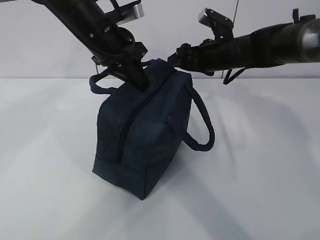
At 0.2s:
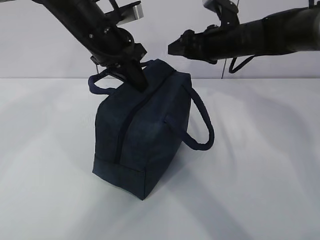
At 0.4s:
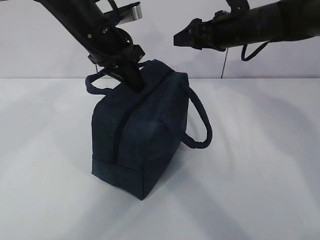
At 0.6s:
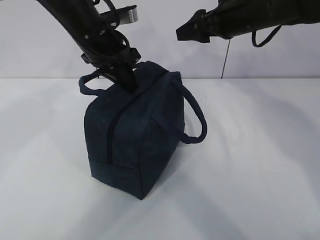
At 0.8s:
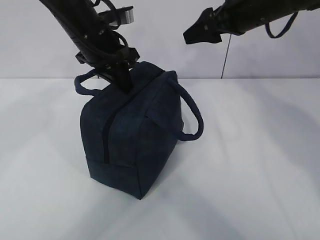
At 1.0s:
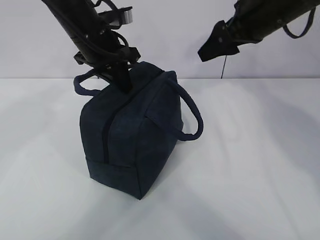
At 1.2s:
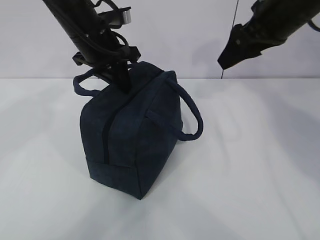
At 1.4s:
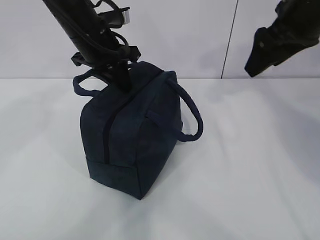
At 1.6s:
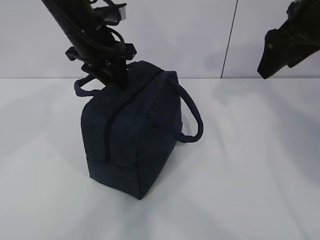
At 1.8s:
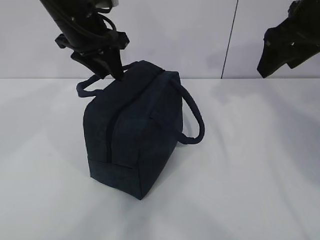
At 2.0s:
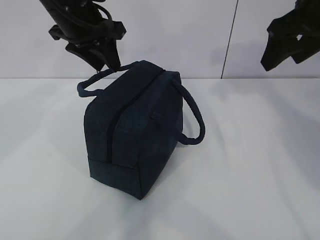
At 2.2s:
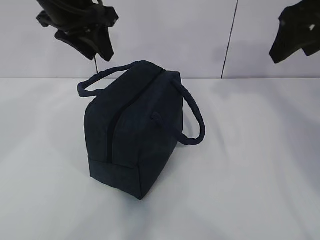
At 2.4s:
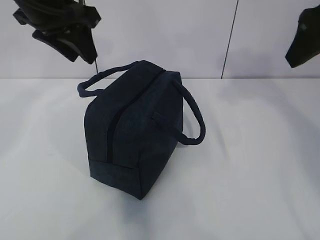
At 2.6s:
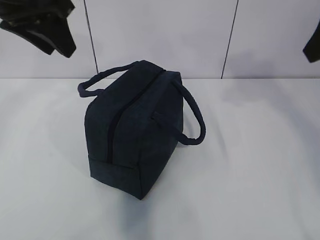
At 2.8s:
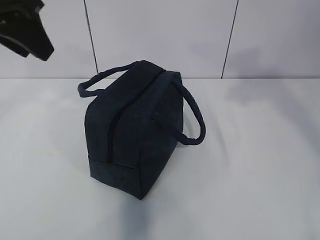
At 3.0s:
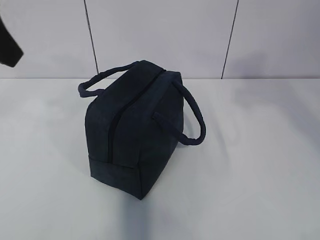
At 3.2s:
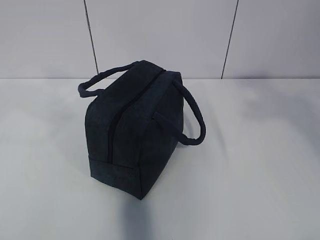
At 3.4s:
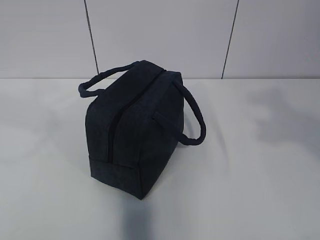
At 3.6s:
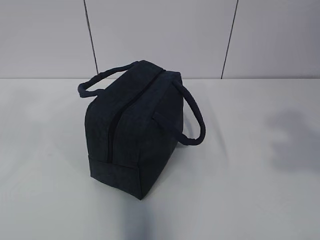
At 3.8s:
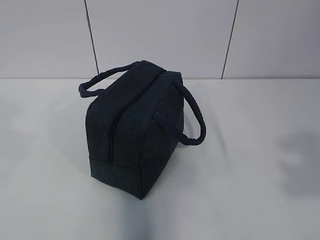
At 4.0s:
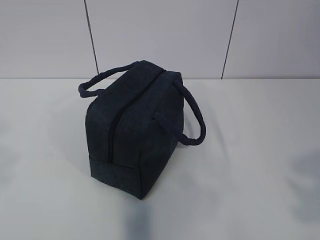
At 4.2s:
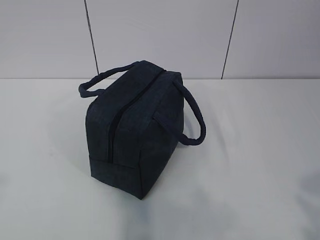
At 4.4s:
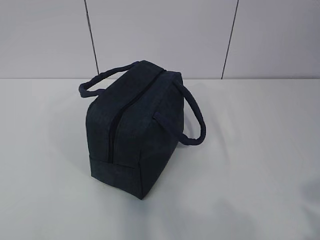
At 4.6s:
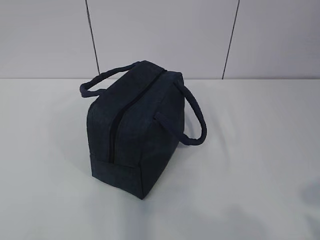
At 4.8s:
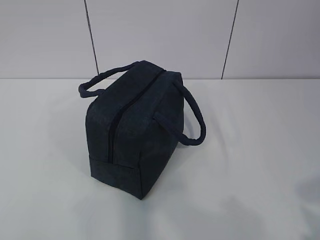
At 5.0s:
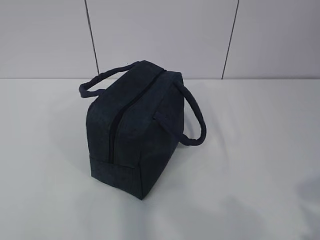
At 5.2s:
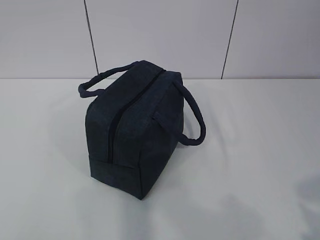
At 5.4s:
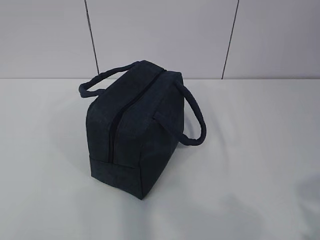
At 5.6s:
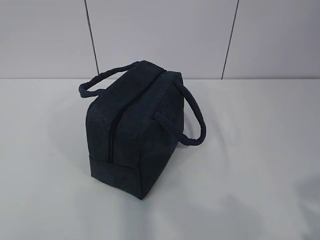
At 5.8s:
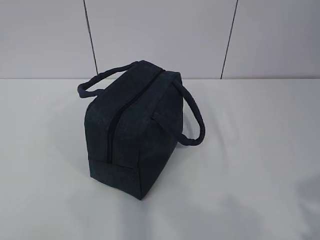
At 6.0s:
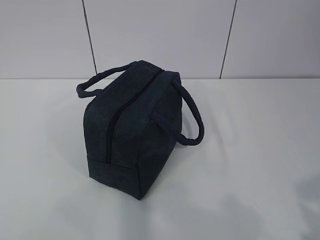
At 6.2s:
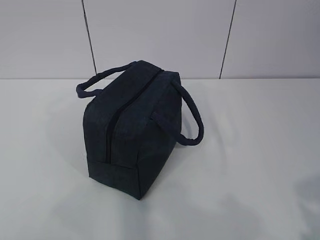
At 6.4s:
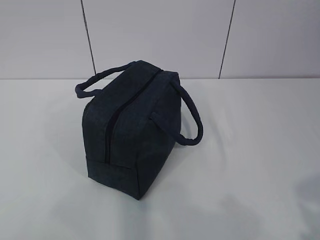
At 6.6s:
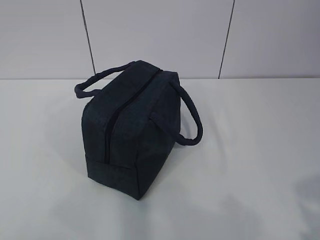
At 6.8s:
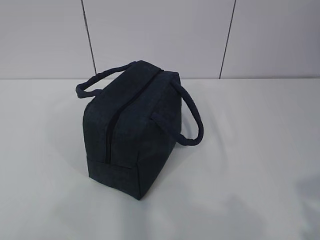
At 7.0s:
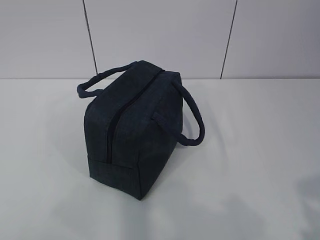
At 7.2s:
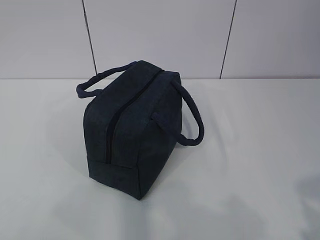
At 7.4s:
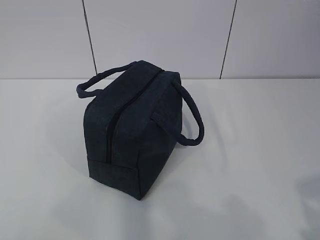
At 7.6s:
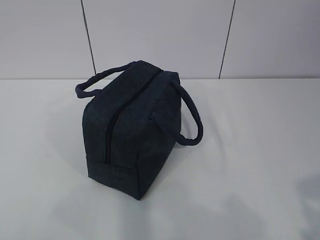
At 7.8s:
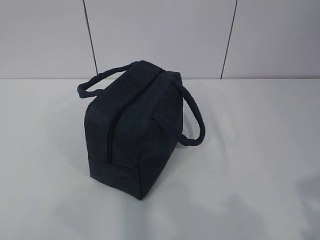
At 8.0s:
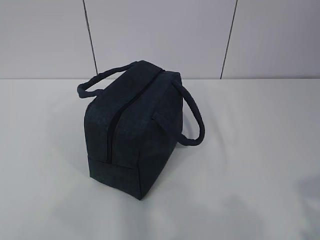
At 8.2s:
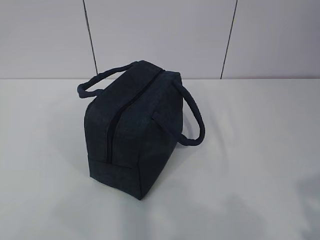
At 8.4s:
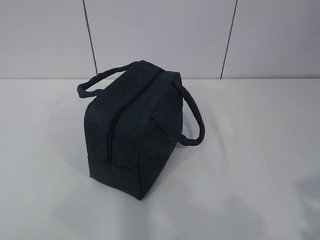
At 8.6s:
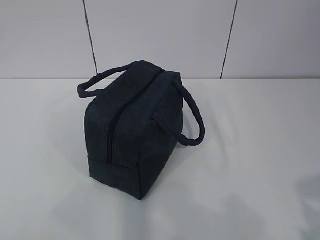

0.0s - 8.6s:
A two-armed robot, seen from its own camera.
0.0s - 1.4s: The right gripper heads upward, backward and to the right, covering approximately 20 cm.
1.4s - 2.8s: The right gripper goes about 15 cm backward and upward. Meanwhile the left gripper travels backward, upward and to the left by approximately 20 cm, and opens.
2.8s - 4.4s: The left gripper is displaced backward and to the left by approximately 30 cm; the right gripper moves backward and downward, roughly 30 cm.
4.4s - 5.8s: The left gripper changes place by roughly 5 cm.
7.2s - 8.6s: The two grippers keep their place.

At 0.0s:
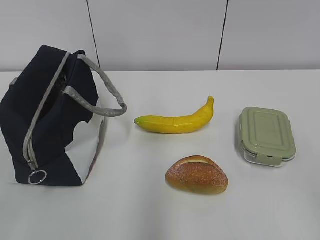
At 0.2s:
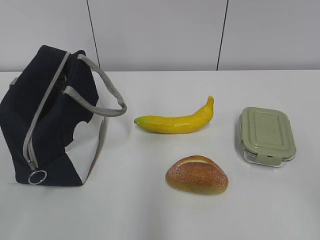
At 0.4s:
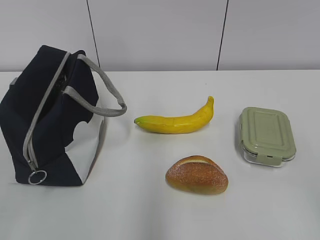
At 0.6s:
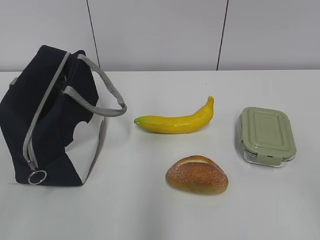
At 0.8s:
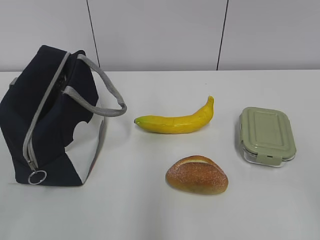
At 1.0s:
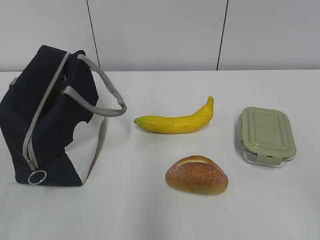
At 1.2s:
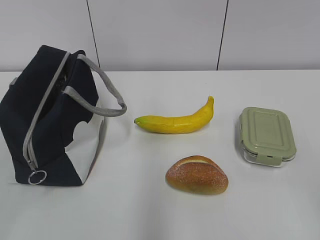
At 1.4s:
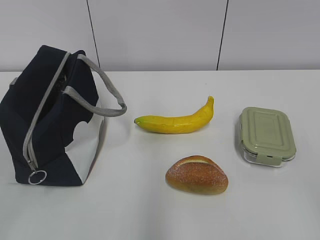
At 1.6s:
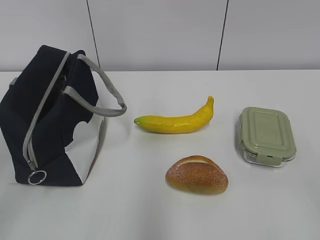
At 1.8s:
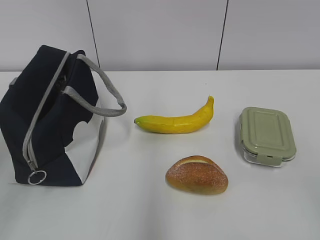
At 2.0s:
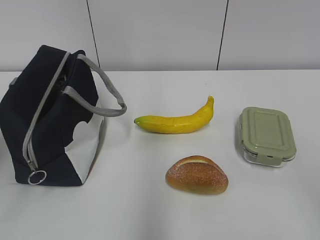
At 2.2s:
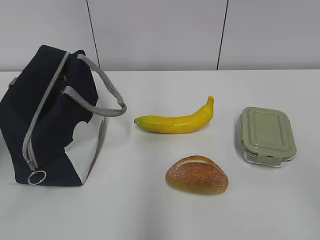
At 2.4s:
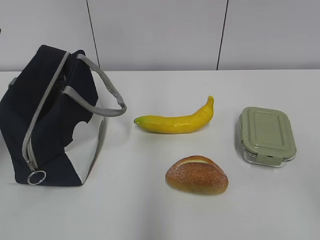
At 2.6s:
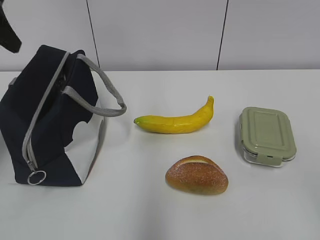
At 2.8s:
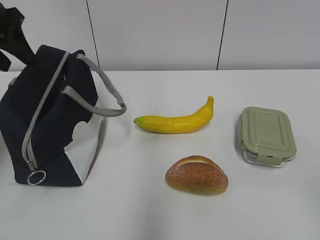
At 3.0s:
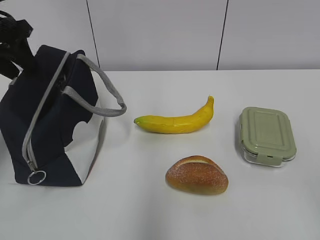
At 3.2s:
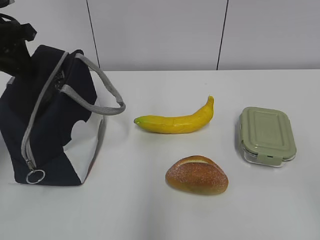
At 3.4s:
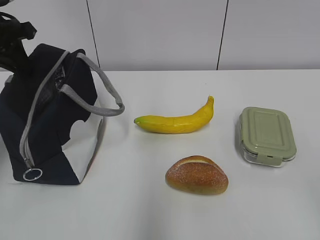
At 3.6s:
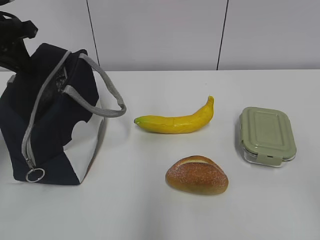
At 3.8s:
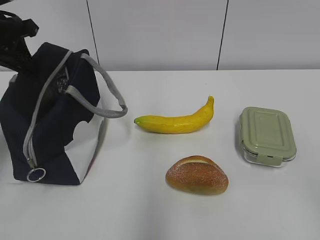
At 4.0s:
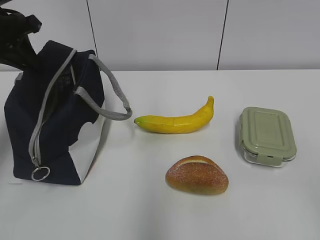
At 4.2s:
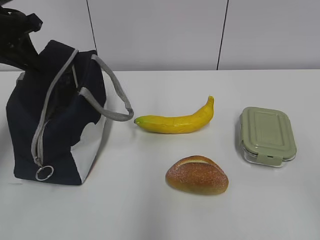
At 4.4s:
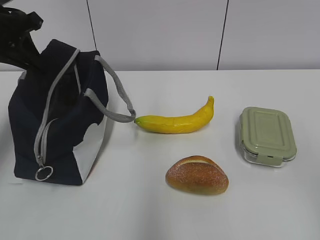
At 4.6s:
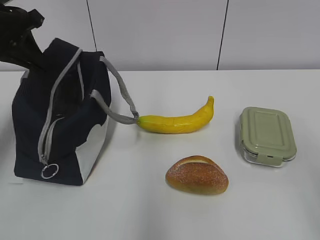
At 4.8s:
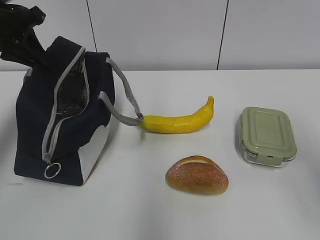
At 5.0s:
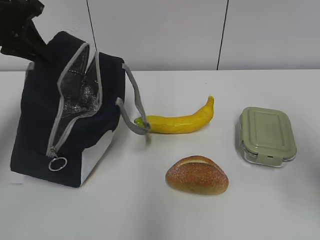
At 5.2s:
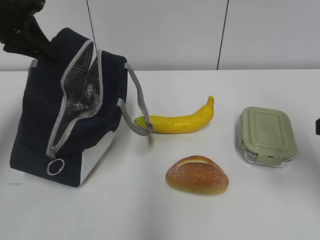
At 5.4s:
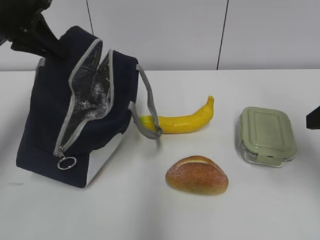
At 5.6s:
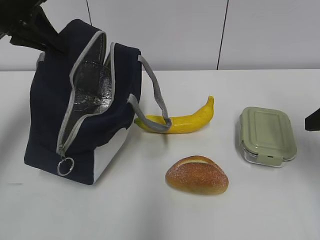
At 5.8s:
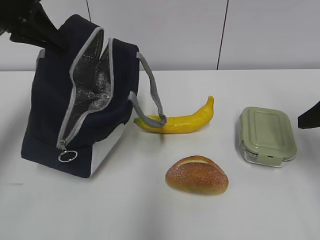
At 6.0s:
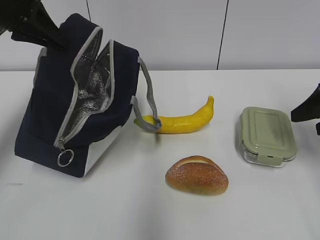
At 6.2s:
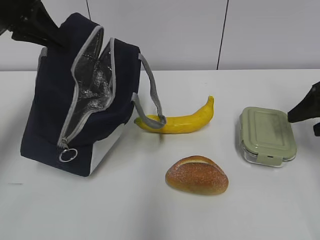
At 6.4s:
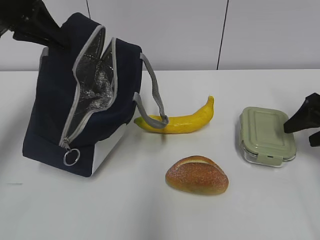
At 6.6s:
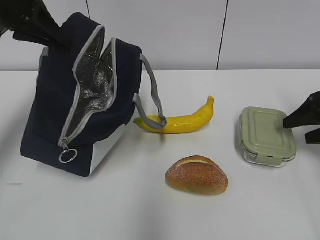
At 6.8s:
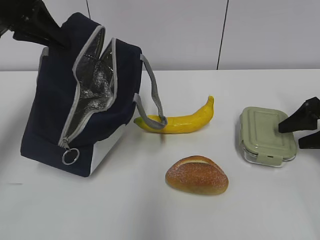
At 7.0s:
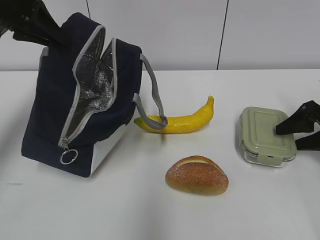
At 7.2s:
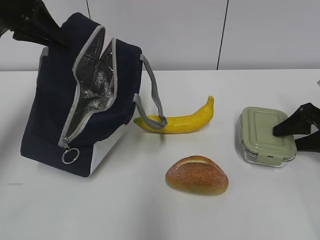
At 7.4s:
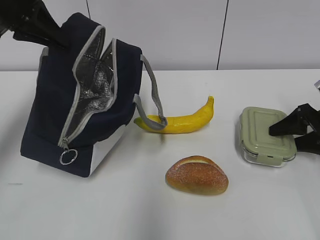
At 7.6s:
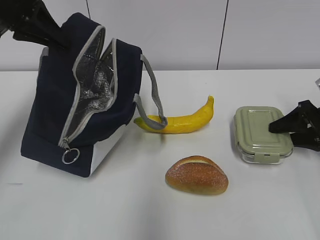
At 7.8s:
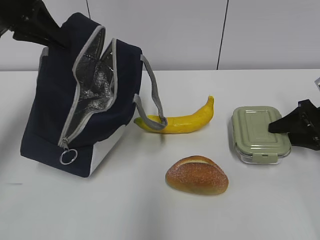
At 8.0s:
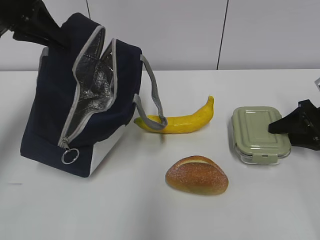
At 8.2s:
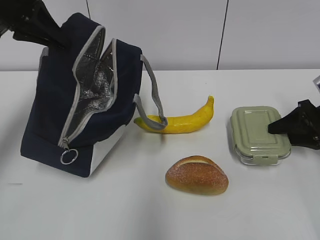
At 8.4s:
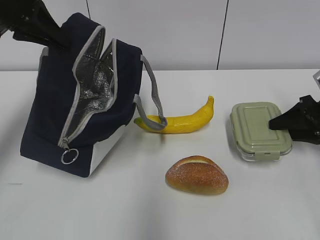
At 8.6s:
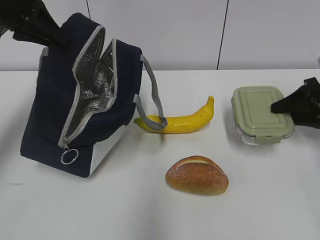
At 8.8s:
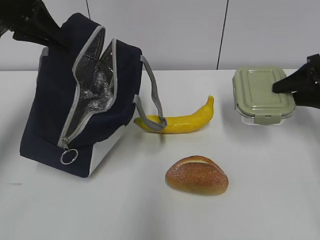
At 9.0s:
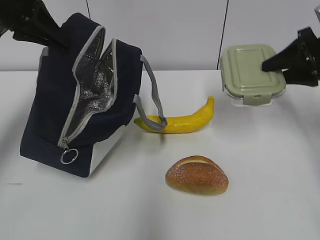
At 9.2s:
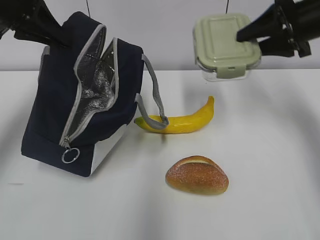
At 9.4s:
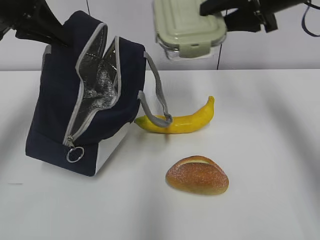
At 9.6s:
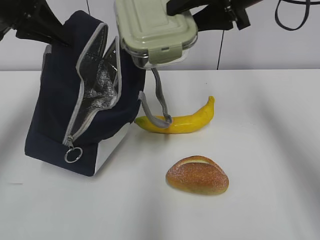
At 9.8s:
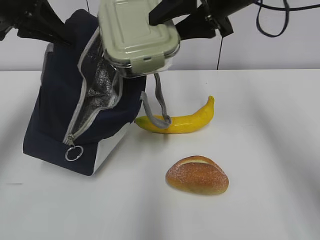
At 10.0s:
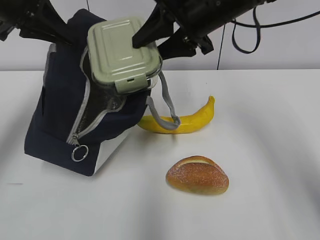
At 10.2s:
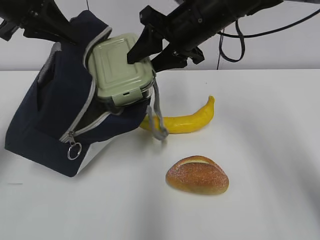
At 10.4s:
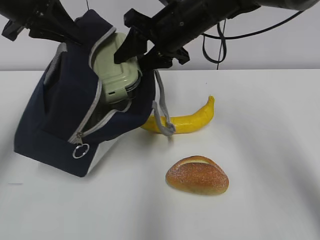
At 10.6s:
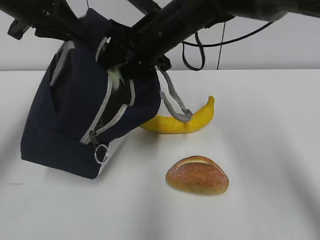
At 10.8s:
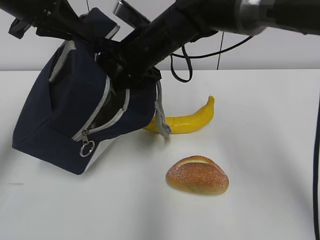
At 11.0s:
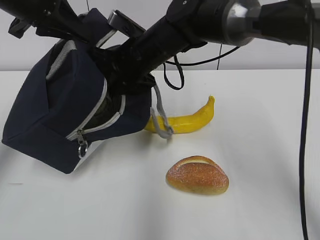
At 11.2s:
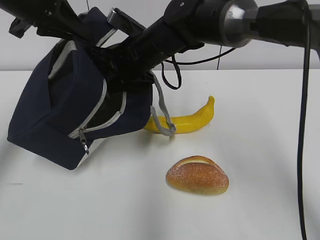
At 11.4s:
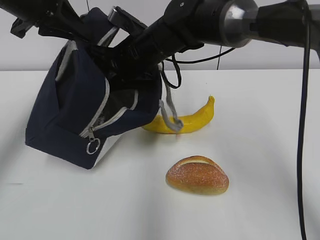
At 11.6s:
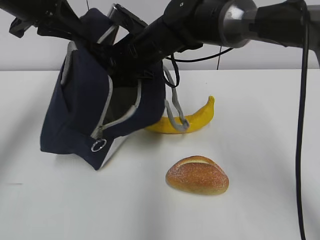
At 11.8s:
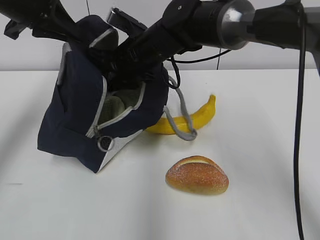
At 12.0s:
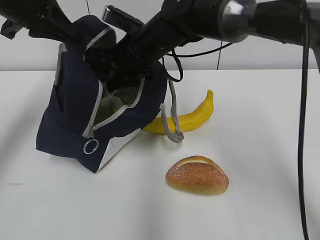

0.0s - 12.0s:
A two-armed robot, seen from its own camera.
1.6s - 3.0s: The left gripper is displaced forward by roughly 30 cm, and closes up.
3.0s - 4.4s: The left gripper closes its fingers.
4.4s - 6.0s: The right gripper shifts about 30 cm forward, while the left gripper changes place by roughly 5 cm.
6.0s - 7.6s: The right gripper shifts approximately 10 cm downward and forward.
7.6s - 9.0s: The right gripper shifts some 15 cm upward.
9.0s - 10.4s: The right gripper shifts approximately 25 cm to the left.
10.4s - 12.0s: The right gripper goes roughly 5 cm to the left.

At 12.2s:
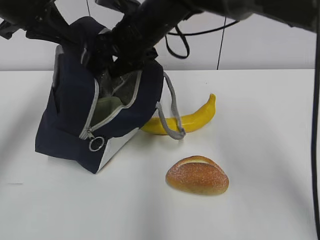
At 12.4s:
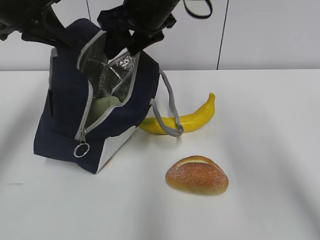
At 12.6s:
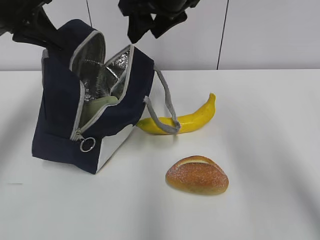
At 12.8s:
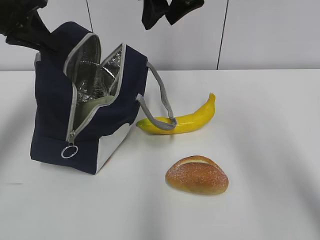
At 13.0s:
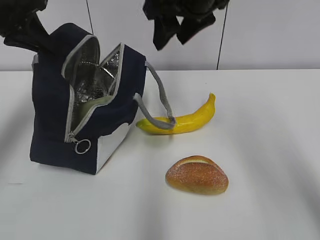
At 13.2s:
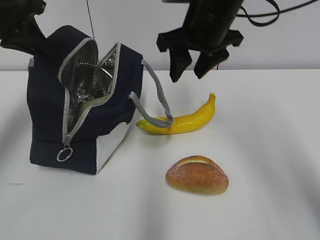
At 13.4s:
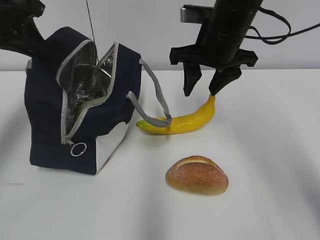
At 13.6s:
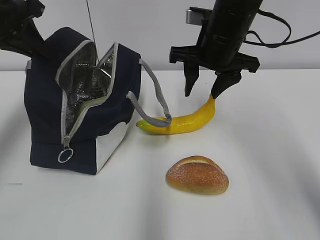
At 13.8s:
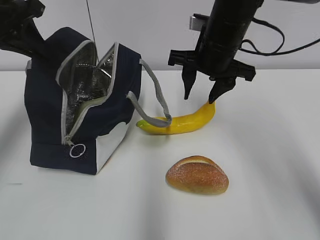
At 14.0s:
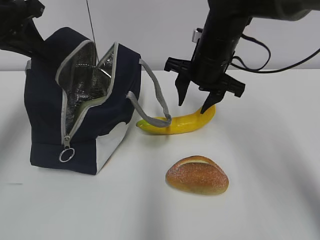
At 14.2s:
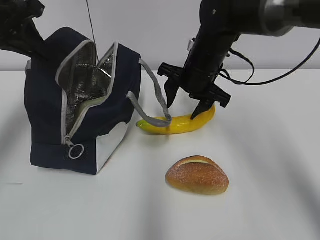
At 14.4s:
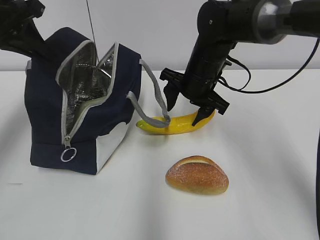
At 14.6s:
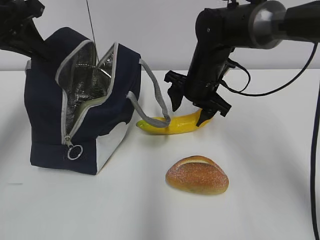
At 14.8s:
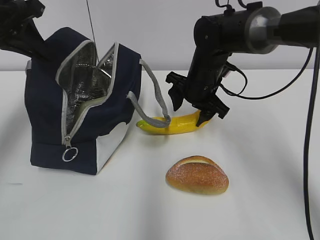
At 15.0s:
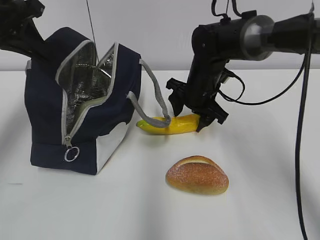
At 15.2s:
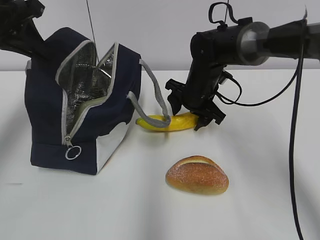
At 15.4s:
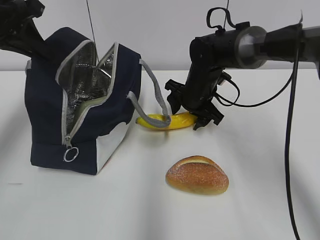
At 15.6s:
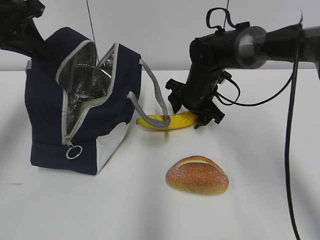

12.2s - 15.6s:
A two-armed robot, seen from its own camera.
12.2s - 13.8s: The right gripper shifts approximately 10 cm to the right.
13.8s - 15.6s: The right gripper goes approximately 15 cm downward and forward.
